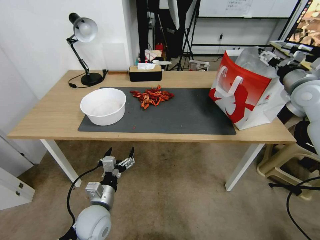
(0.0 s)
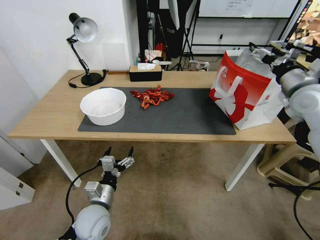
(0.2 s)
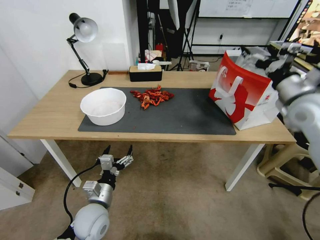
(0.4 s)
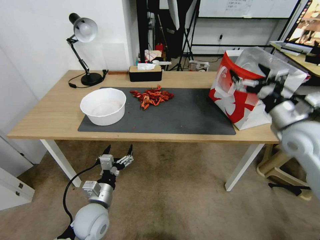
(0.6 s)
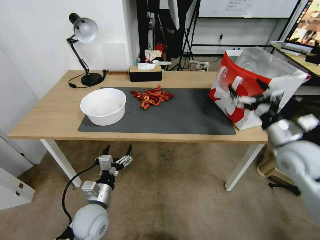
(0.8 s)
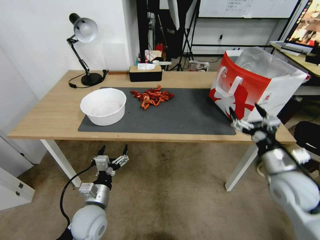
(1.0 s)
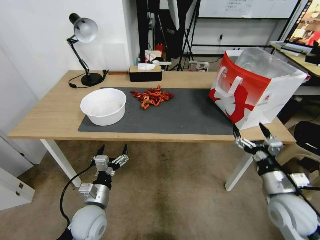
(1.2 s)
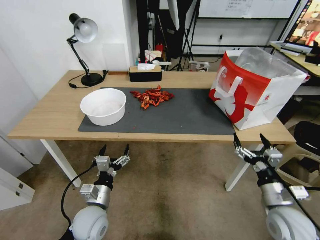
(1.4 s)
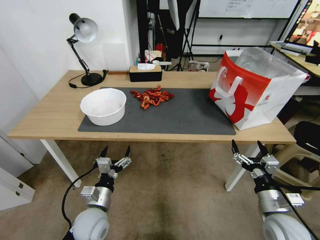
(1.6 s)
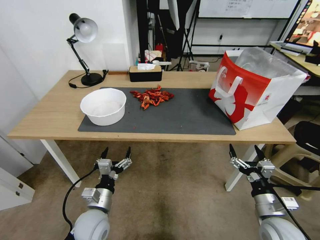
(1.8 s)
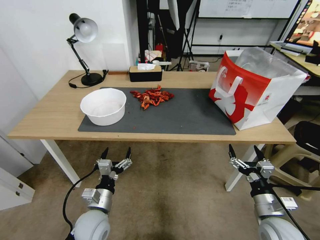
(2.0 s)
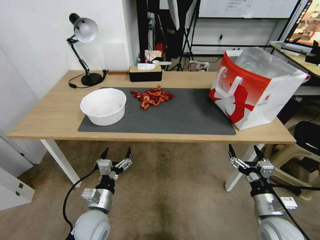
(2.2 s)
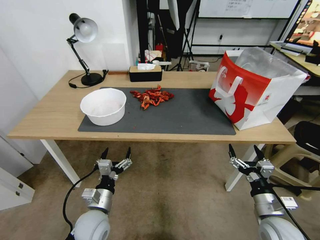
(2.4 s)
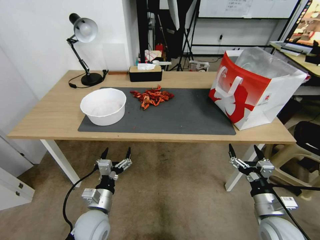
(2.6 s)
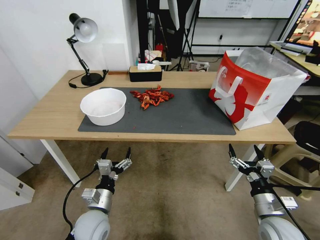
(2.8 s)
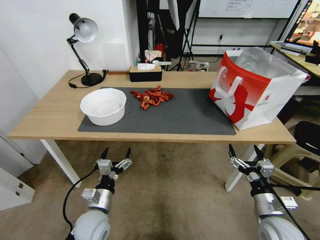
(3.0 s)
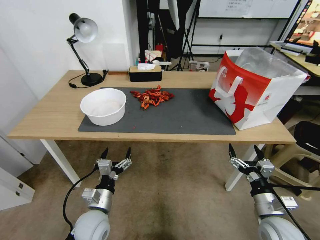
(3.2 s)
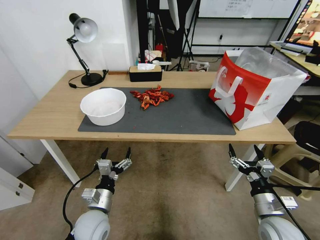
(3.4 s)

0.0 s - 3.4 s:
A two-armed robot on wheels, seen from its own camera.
Task of the whole recording: Close the takeout container lid, then place the container into the takeout bag.
0.0 s - 1.6 s: The right gripper heads downward and backward, covering some 40 cm.
1.6 s - 3.4 s: There are only small adjustments of the grippers.

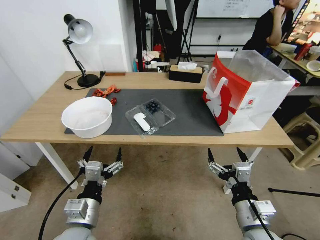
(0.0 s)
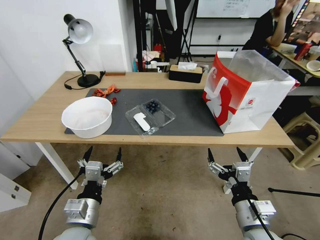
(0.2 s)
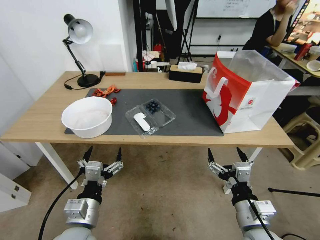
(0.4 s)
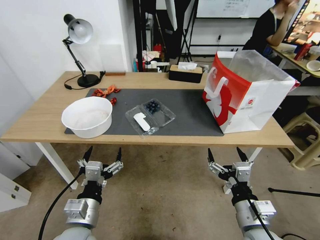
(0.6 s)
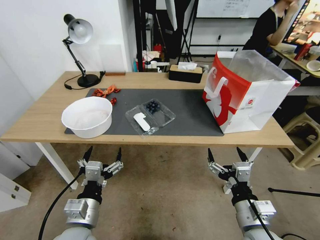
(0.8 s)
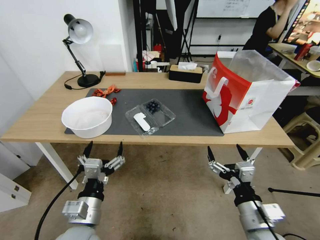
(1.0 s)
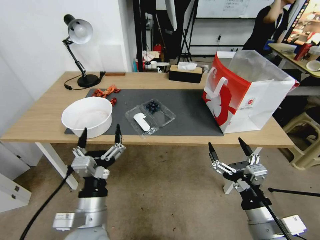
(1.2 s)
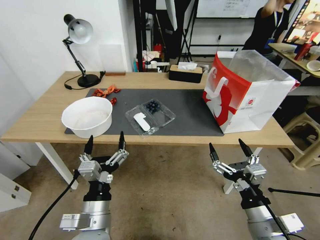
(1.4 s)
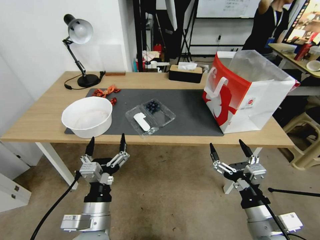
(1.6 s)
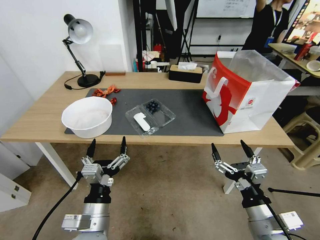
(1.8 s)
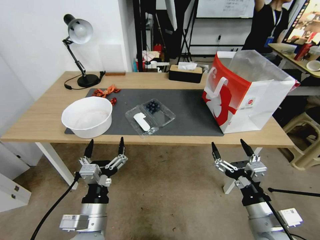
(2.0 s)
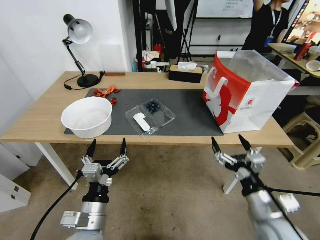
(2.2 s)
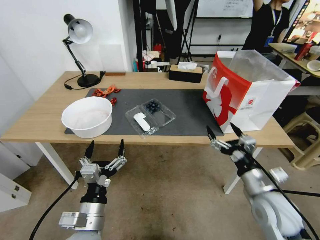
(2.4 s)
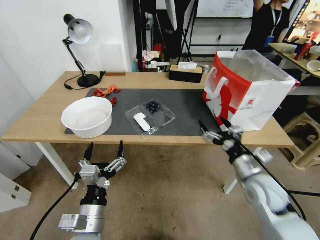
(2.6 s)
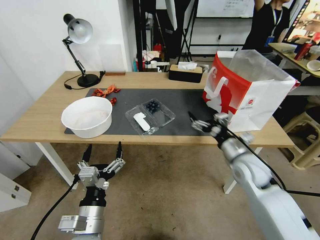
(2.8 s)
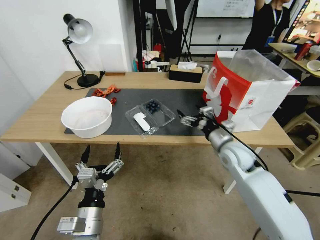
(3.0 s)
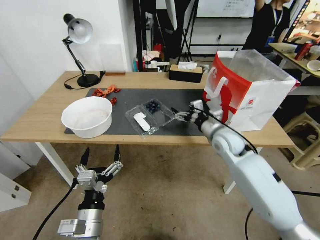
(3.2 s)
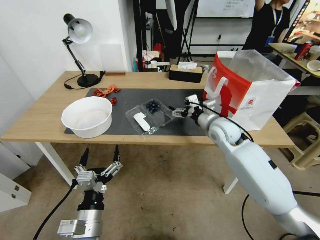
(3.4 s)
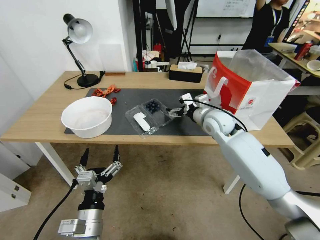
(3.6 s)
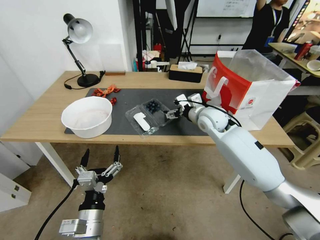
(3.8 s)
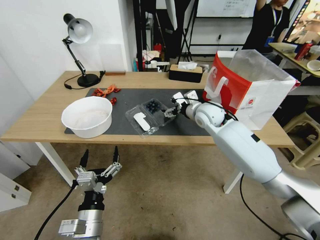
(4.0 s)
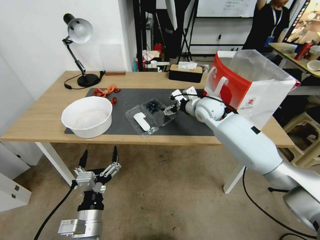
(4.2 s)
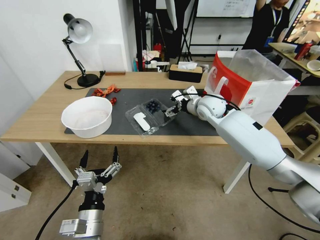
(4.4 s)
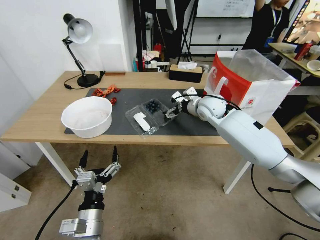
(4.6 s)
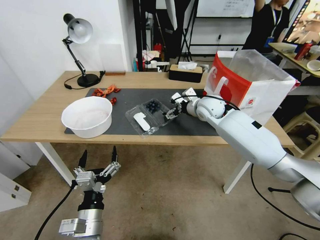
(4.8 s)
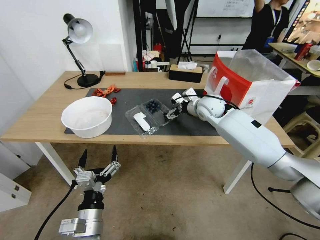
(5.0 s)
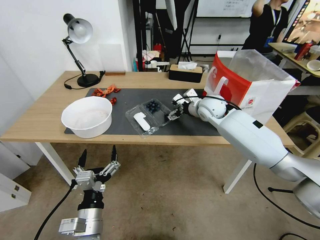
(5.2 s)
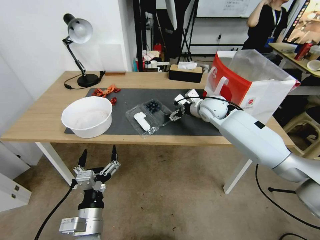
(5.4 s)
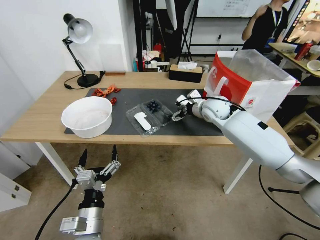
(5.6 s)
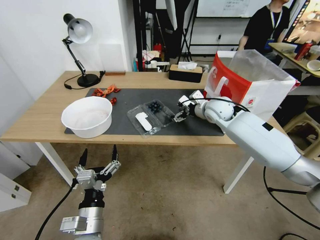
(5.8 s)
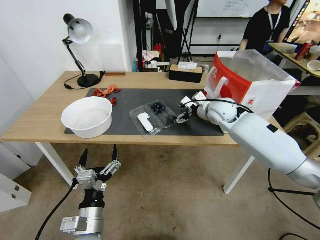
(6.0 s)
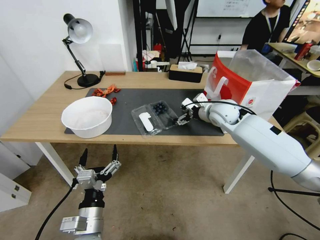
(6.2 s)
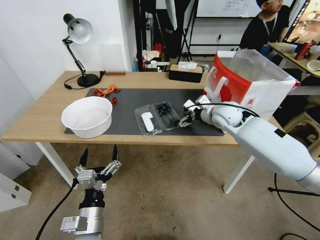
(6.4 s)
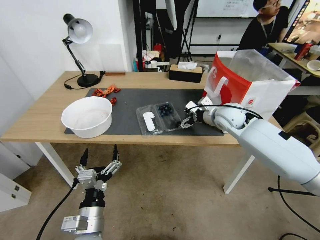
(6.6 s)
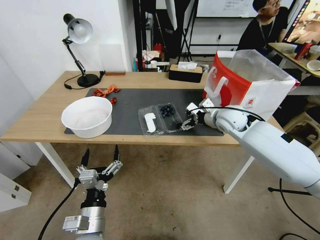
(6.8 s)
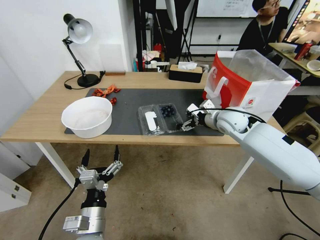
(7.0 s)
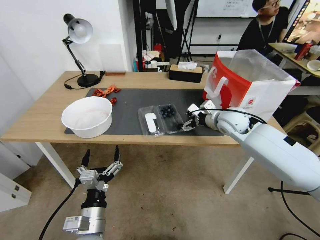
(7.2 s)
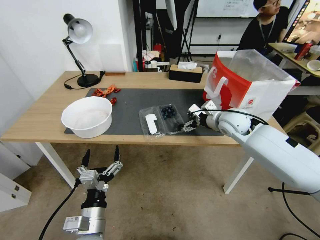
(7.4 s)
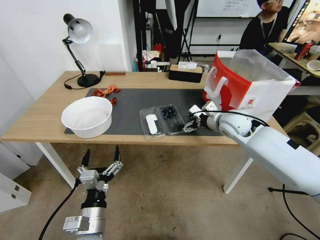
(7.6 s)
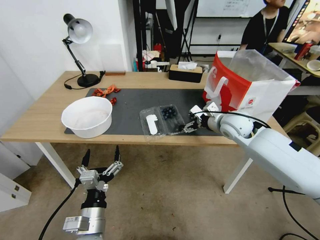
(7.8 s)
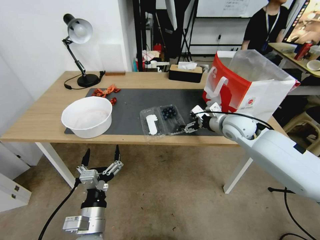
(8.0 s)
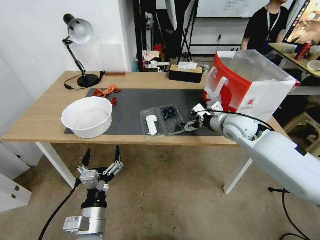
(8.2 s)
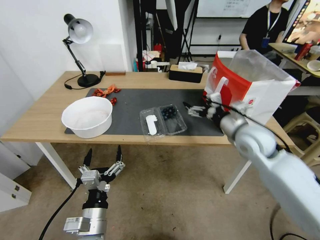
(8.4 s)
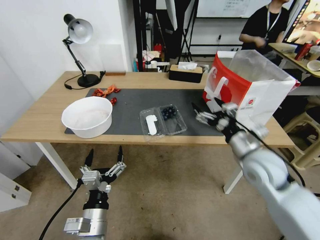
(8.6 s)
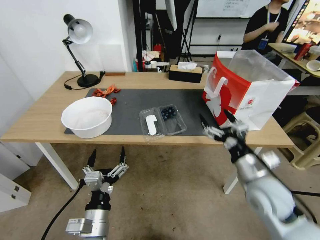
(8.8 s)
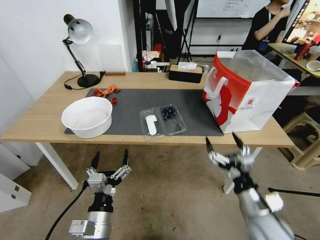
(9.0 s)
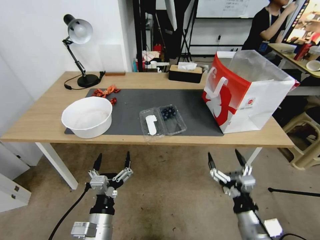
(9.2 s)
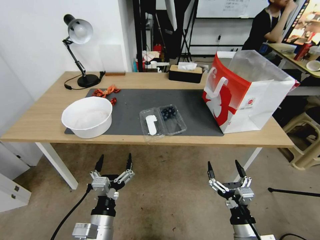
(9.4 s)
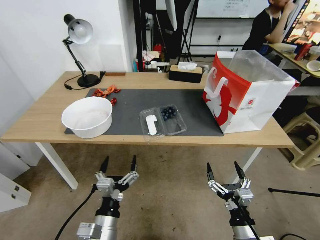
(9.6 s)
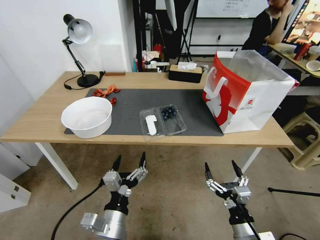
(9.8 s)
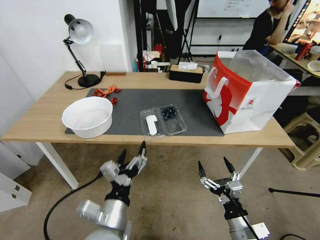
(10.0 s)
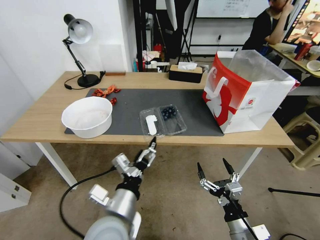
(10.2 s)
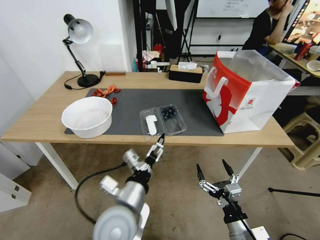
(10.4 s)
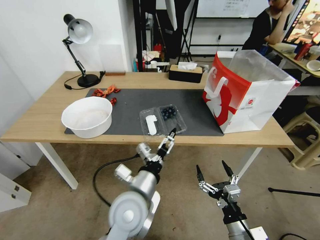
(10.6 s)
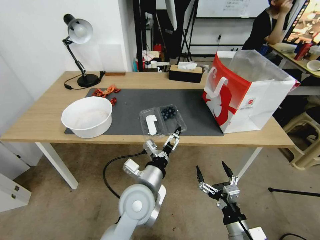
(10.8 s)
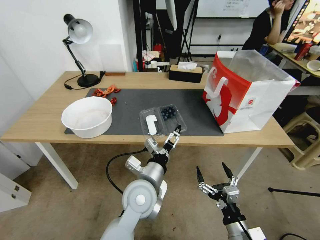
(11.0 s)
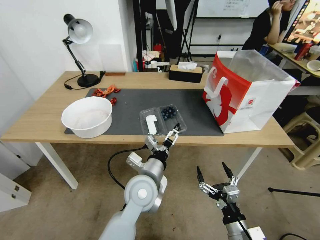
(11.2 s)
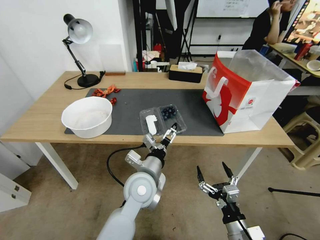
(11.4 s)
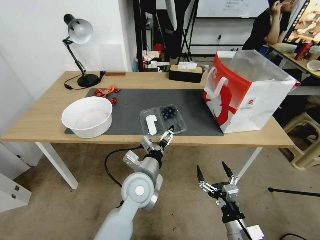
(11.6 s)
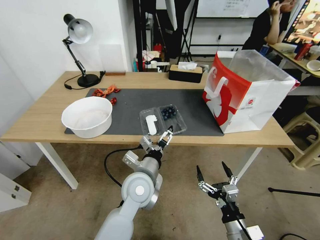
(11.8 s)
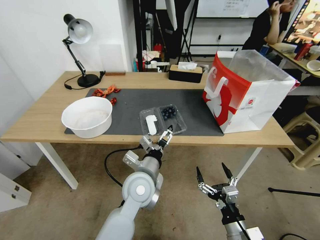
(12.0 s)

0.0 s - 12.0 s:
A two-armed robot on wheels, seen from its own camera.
Task of the whole recording: Close the takeout container lid, then place the container into the takeout bag.
1.6 s - 3.0 s: The right gripper travels forward by roughly 25 cm.
3.0 s - 4.4 s: The right gripper shifts approximately 20 cm forward, upward and to the left.
4.4 s - 6.0 s: The grippers make only small movements.
6.0 s - 7.6 s: The right gripper is displaced backward by roughly 5 cm.
7.6 s - 9.0 s: The right gripper is displaced backward and downward by about 30 cm.
9.0 s - 10.4 s: The left gripper is displaced upward, to the right and forward by about 10 cm. The right gripper is displaced downward and backward by roughly 10 cm.
10.4 s - 12.0 s: The left gripper travels forward by roughly 10 cm.

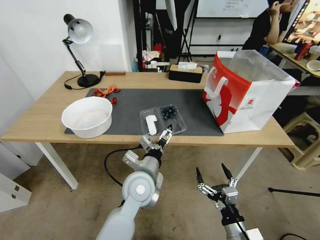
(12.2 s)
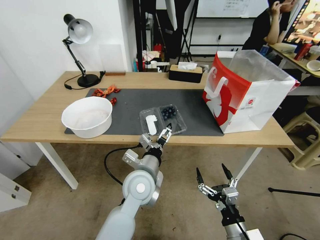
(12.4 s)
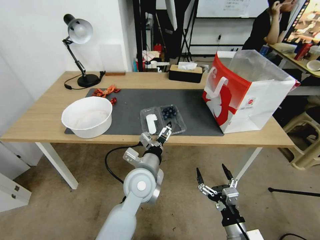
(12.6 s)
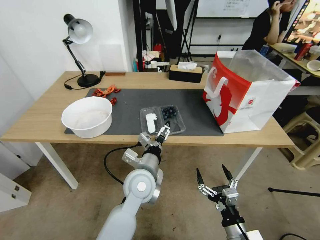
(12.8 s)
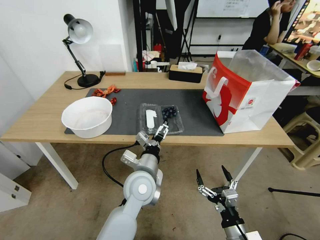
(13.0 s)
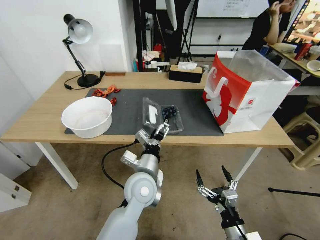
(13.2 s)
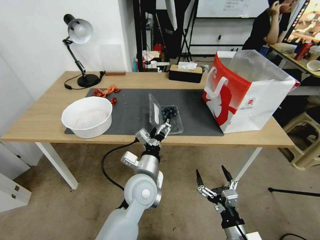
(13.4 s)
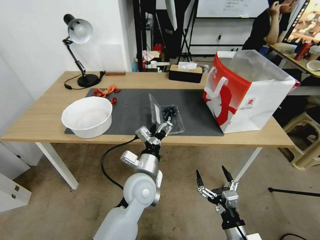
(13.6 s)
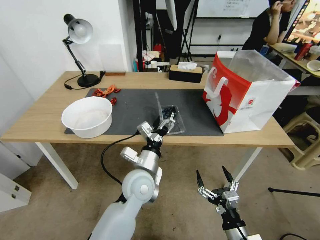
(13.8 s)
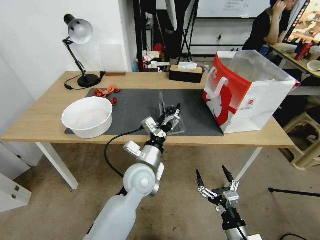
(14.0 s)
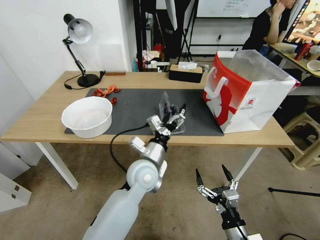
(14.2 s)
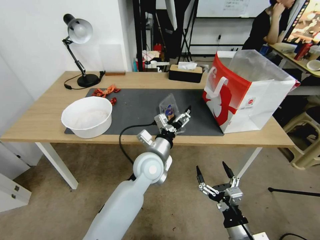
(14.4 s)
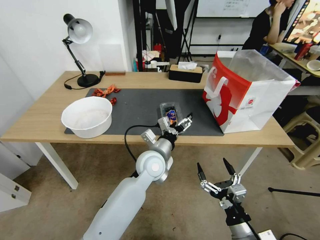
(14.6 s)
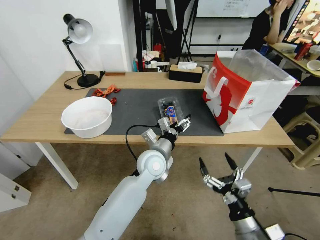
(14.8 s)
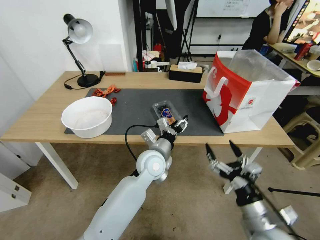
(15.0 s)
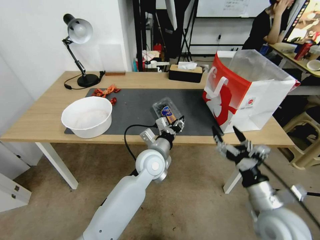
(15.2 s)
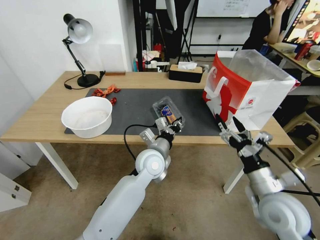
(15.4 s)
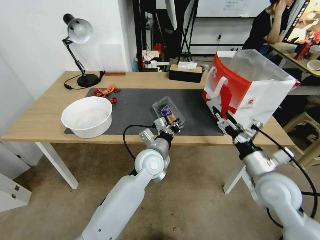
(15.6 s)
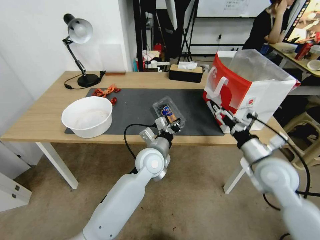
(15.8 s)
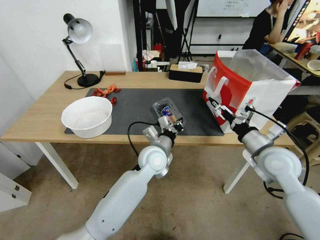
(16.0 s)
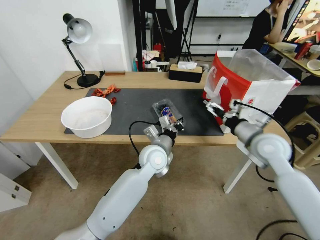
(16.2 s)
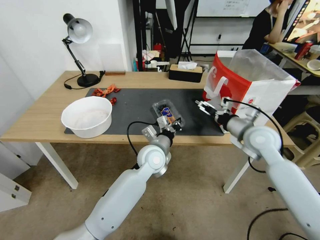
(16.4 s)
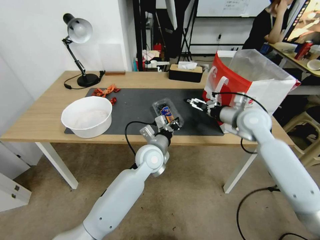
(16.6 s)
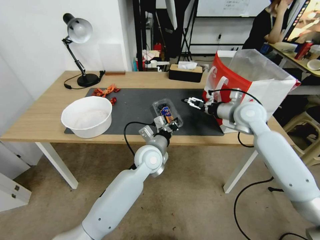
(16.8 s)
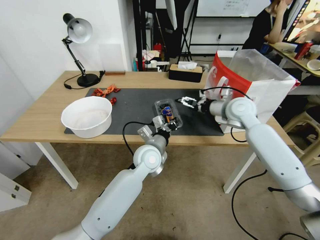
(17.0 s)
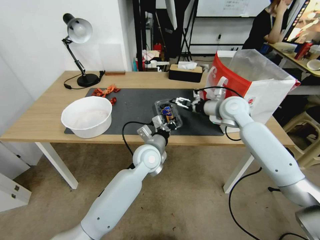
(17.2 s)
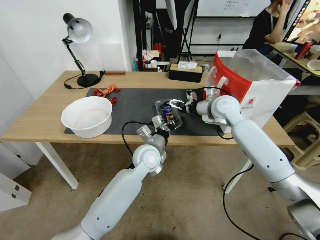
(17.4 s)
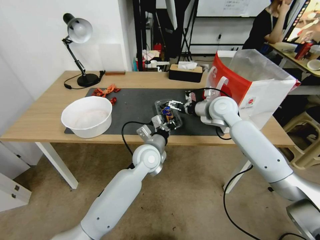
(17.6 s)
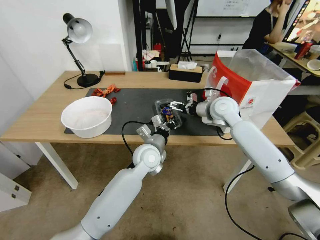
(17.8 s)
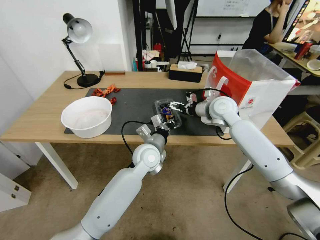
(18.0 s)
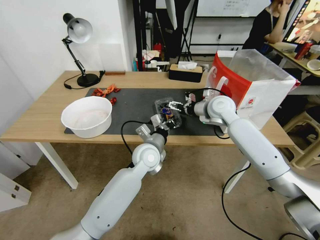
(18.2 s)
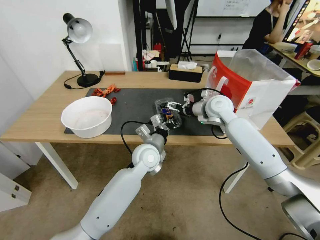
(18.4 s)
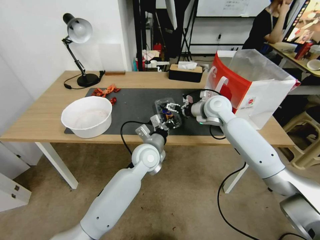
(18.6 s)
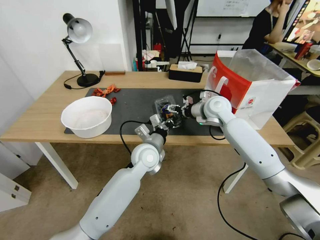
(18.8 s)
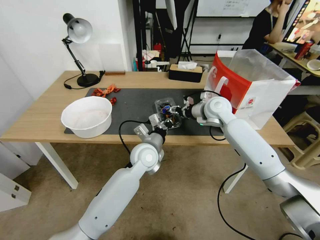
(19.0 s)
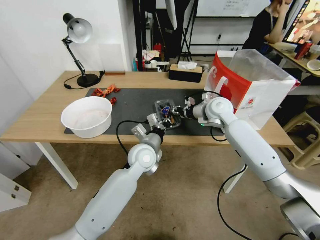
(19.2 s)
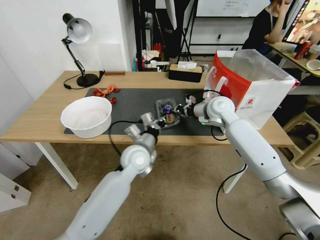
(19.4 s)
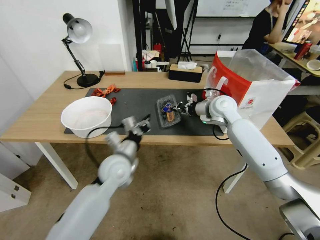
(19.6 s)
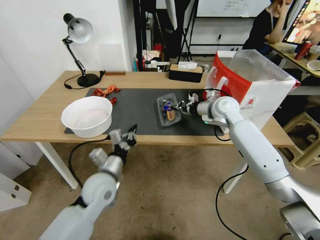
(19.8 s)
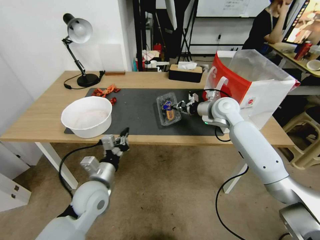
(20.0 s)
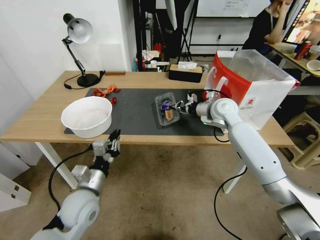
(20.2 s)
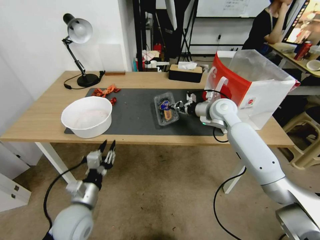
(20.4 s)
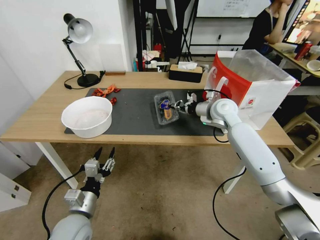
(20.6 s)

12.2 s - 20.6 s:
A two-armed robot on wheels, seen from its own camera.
Task of the whole recording: Close the takeout container lid, then place the container into the takeout bag.
13.6 s - 15.0 s: The right gripper goes about 10 cm upward; the left gripper goes some 5 cm forward, and closes.
15.0 s - 16.4 s: The left gripper closes, while the right gripper moves forward and upward, some 25 cm.
16.4 s - 17.8 s: The right gripper heads forward and to the left, covering approximately 15 cm.
17.8 s - 19.2 s: The right gripper closes its fingers.
19.2 s - 20.6 s: The left gripper is displaced backward and to the left by roughly 25 cm, and opens its fingers.
